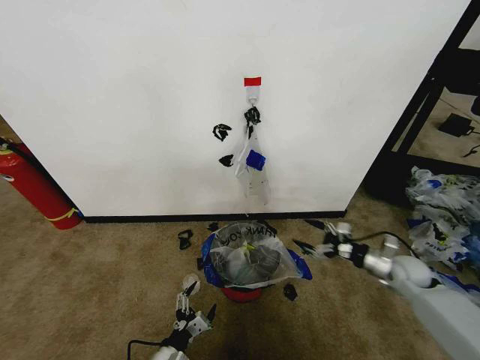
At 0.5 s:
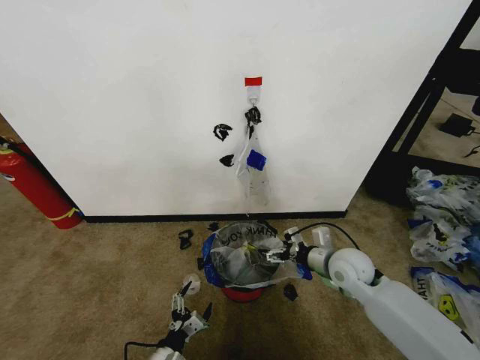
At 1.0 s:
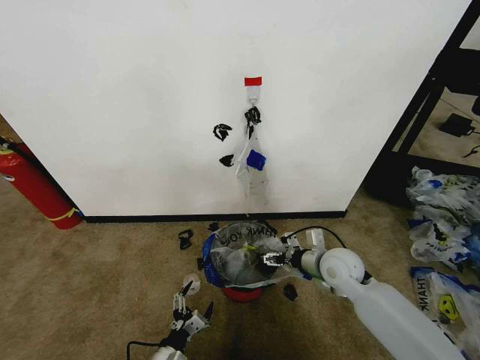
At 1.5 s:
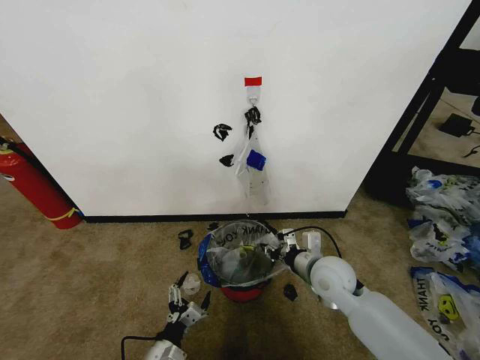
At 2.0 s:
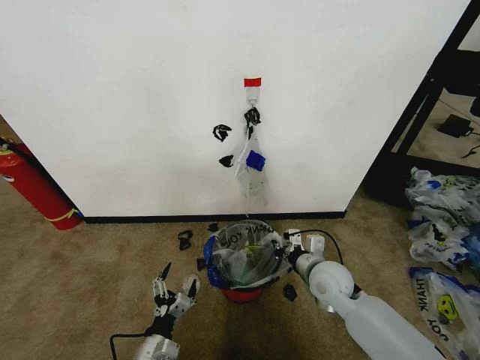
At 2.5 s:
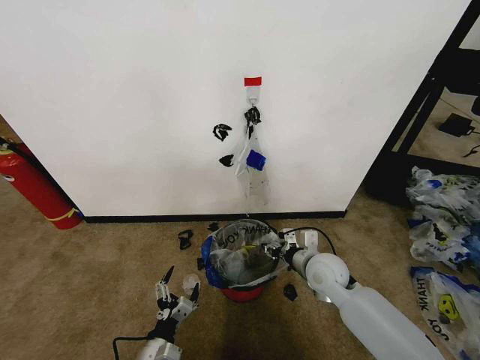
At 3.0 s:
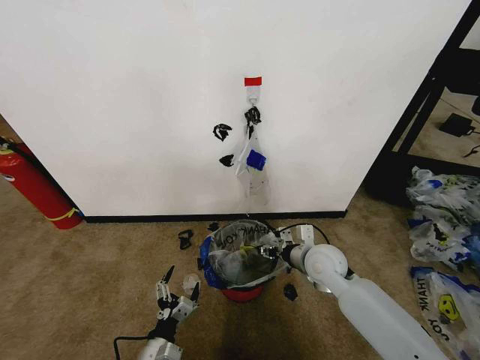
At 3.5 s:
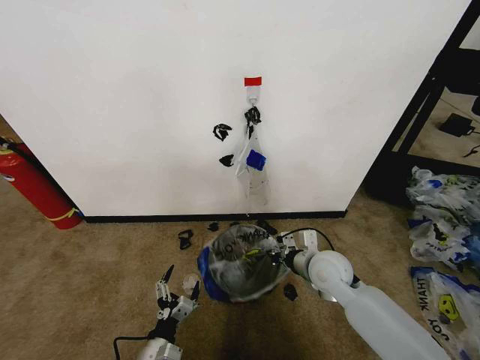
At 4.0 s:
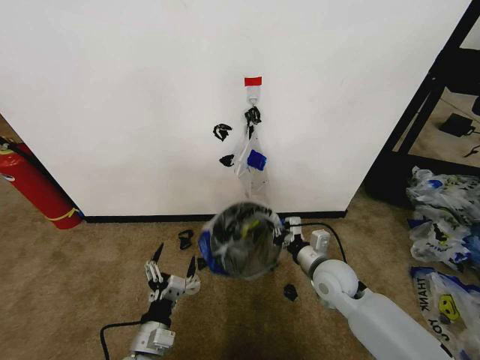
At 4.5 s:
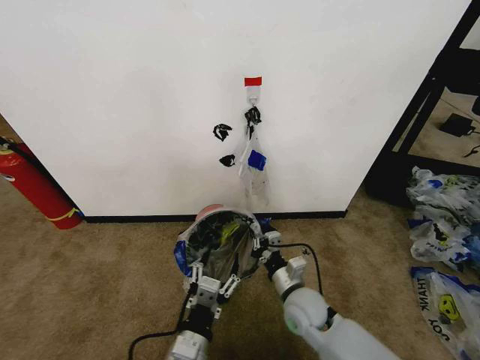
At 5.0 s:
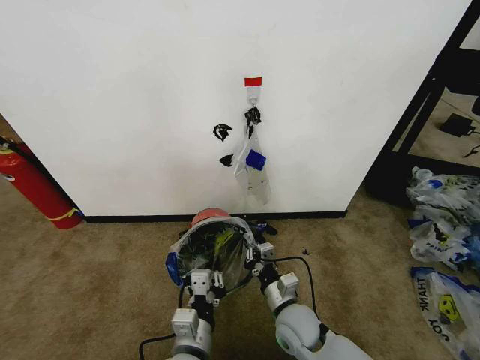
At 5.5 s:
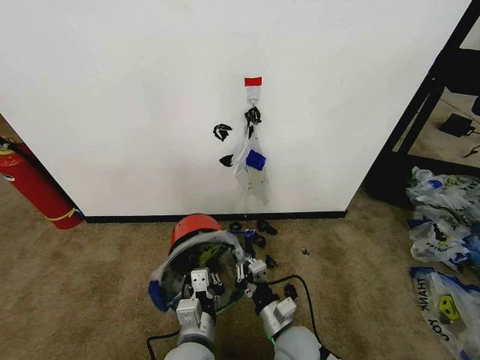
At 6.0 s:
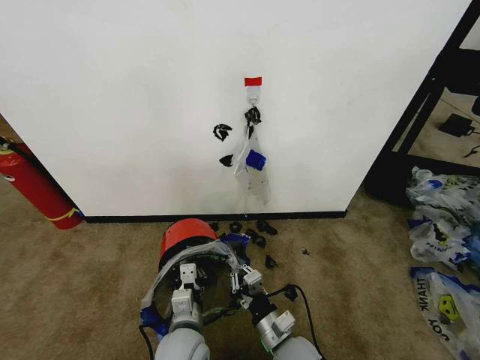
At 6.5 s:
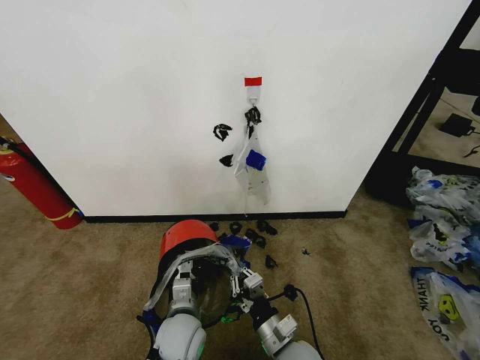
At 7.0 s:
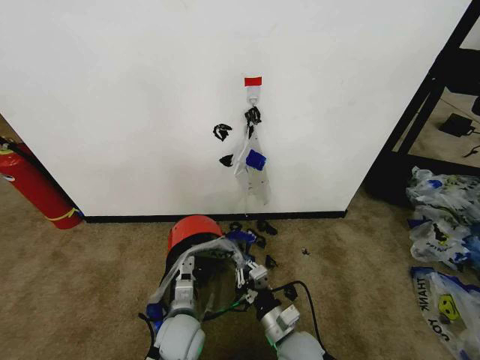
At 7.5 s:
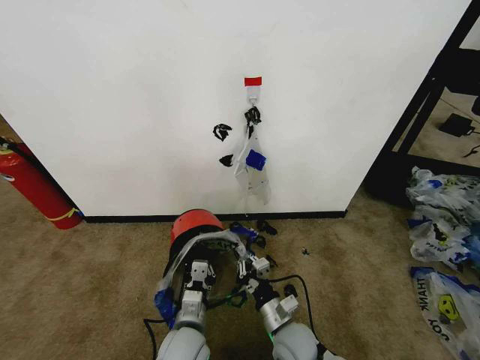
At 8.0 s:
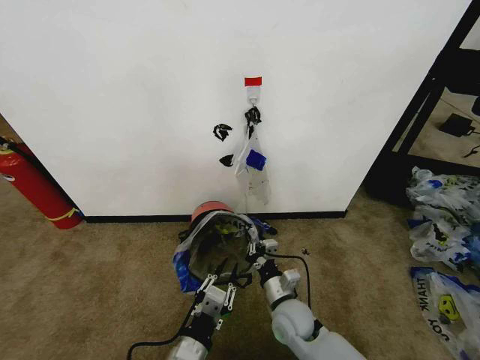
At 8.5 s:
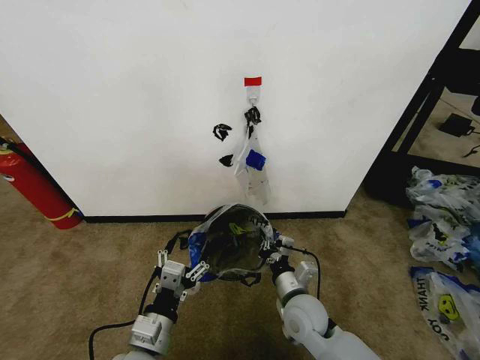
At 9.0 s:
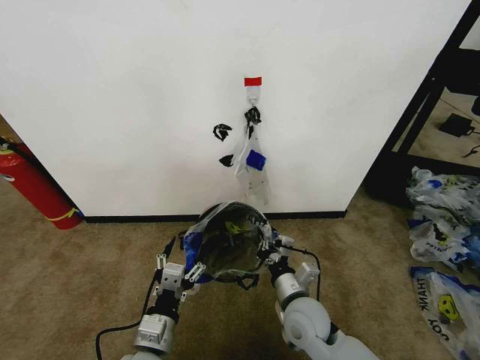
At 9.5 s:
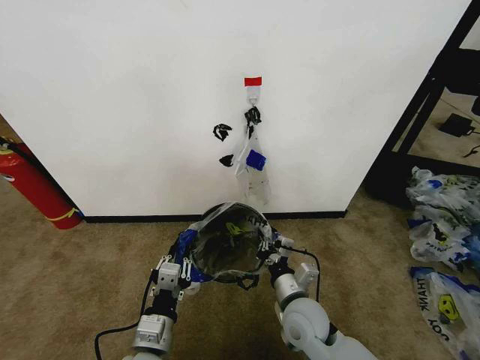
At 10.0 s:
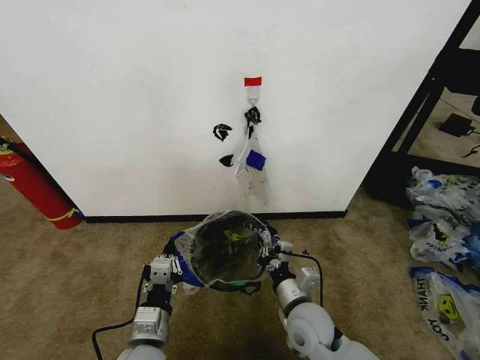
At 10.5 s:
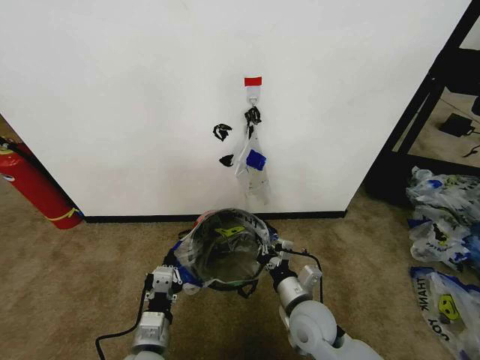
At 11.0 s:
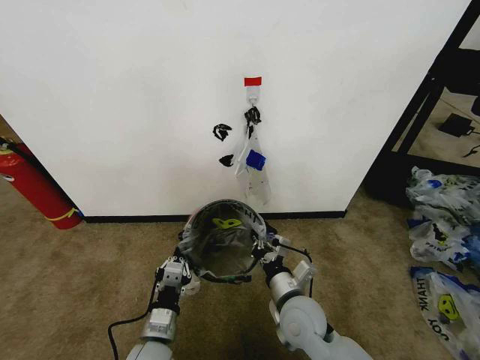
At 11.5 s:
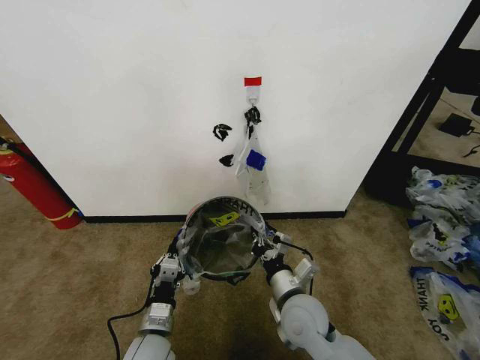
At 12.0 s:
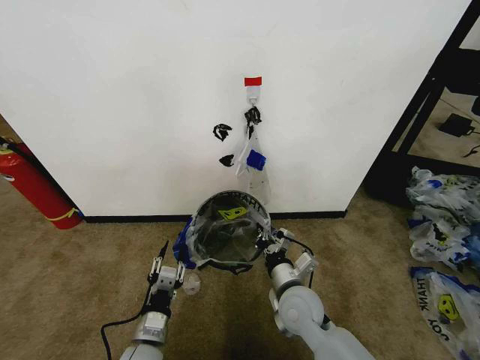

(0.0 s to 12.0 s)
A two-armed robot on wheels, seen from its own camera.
Task of the whole recording: Pick up the garbage bag from the wall and place it over the trash bin.
0.0 s - 2.0 s: The right gripper shifts roughly 20 cm to the left, and closes.
2.0 s - 4.0 s: The left gripper shifts approximately 5 cm upward, while the right gripper opens and closes again.
4.0 s - 6.0 s: The left gripper moves to the right, about 10 cm, and closes its fingers, while the right gripper moves backward, to the left and downward, approximately 20 cm.
6.0 s - 8.0 s: The left gripper goes roughly 10 cm backward, while the right gripper heads forward, covering about 10 cm.
8.0 s - 10.0 s: The left gripper goes approximately 5 cm to the left, and opens, then closes once more; the right gripper travels upward by some 5 cm.
10.0 s - 12.0 s: The left gripper heads downward, covering about 5 cm, and opens.

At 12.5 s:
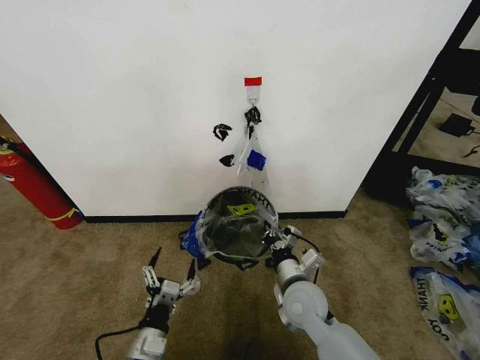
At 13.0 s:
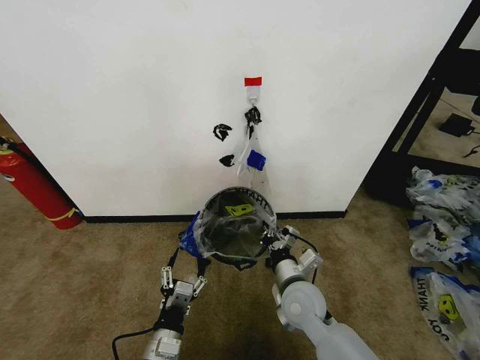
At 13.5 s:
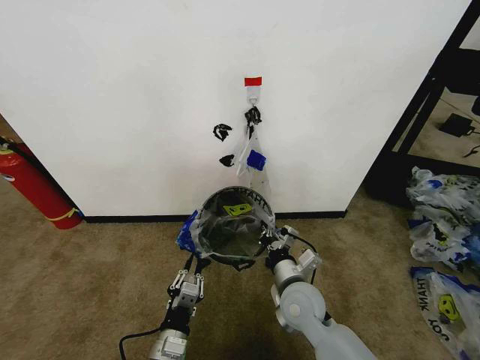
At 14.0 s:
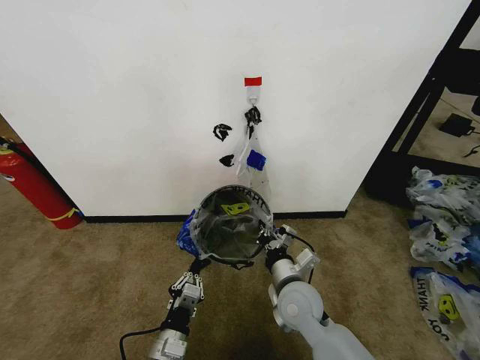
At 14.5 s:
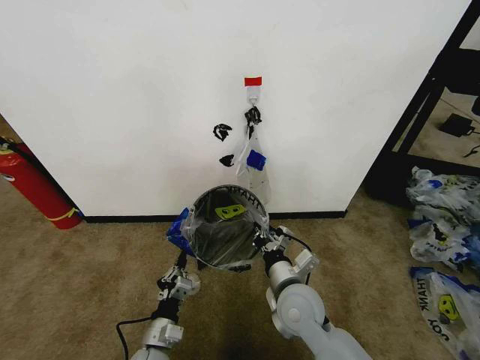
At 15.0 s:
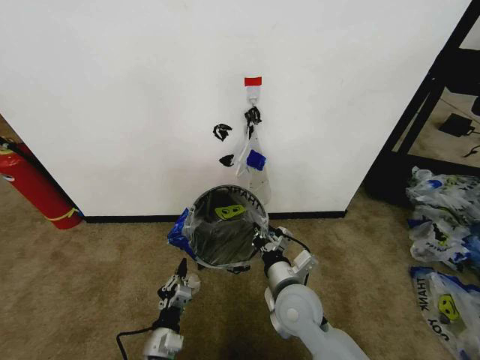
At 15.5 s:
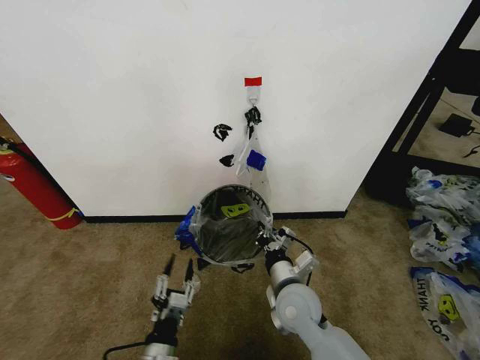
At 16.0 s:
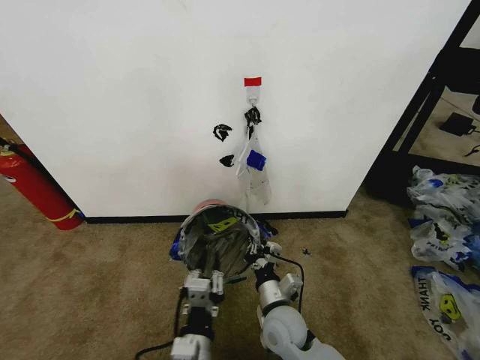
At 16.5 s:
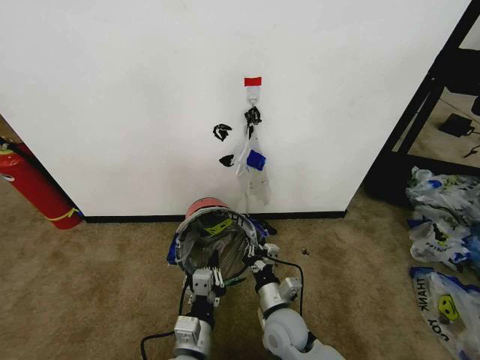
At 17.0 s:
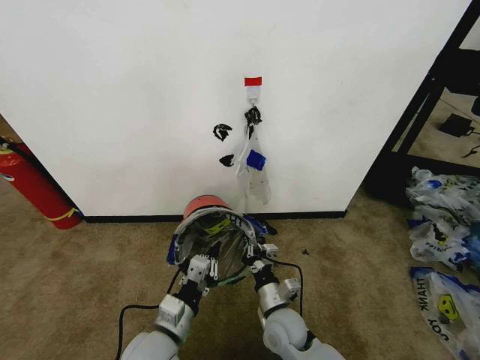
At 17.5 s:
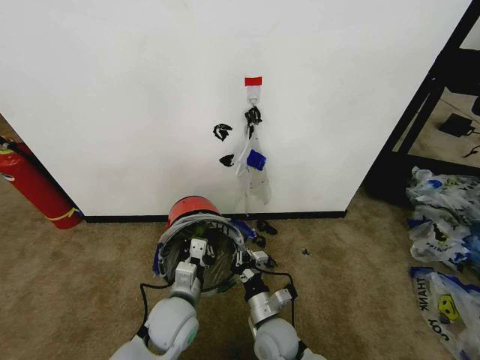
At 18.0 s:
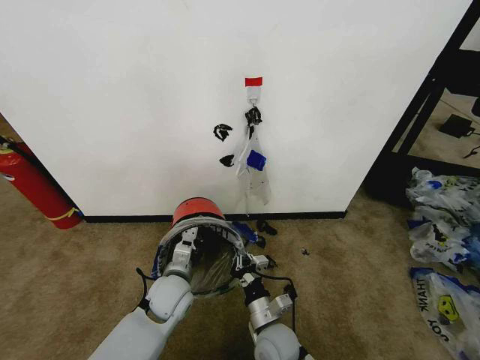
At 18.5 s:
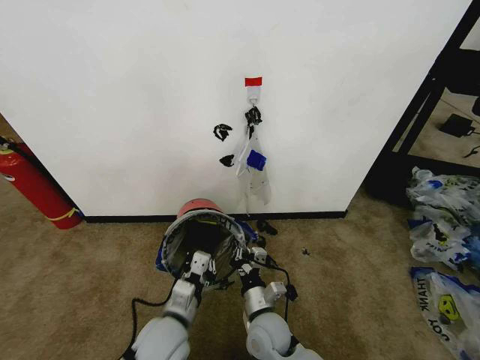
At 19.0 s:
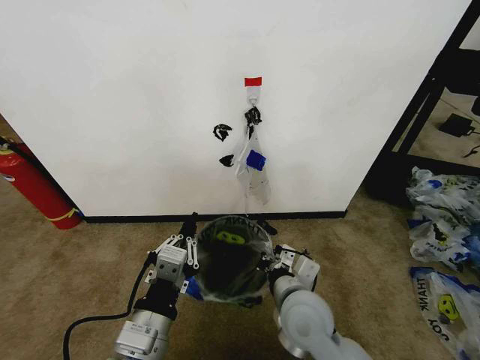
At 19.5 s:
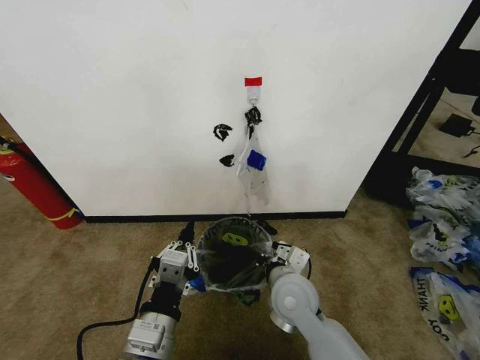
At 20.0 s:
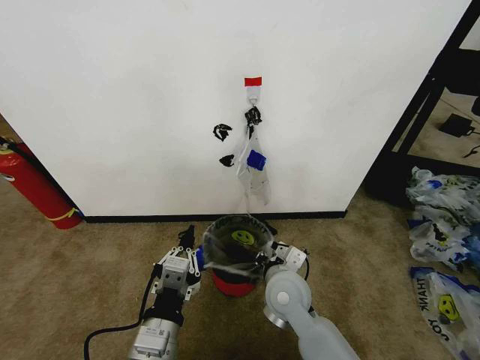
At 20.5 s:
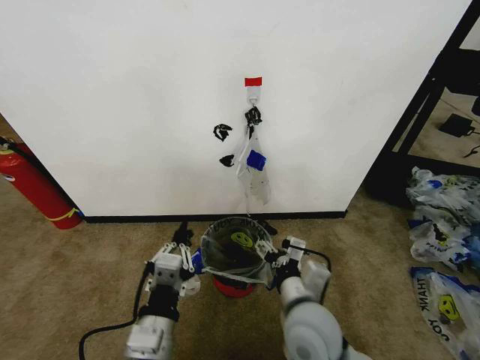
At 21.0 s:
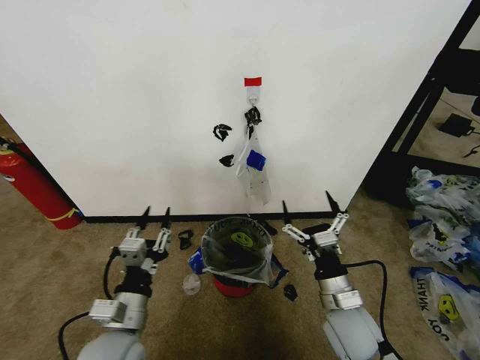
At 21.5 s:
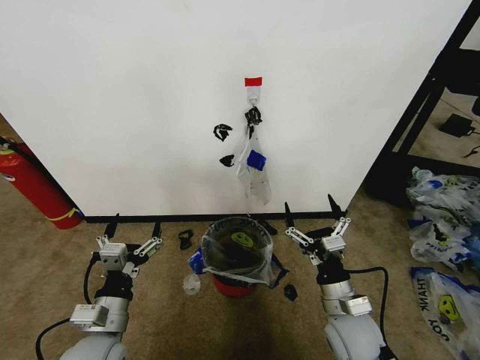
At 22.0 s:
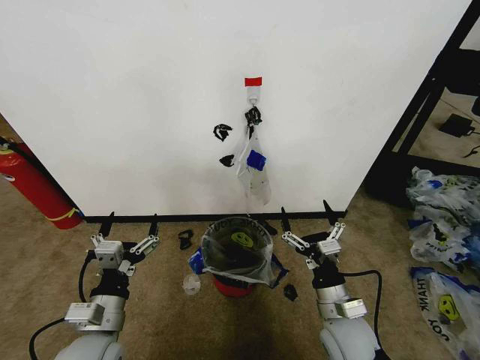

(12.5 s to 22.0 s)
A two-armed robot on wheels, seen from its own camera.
Task of the whole recording: Pick up the garbage bag from the wall and place it over the trash bin.
12.5 s - 14.5 s: The left gripper changes place by about 5 cm, and closes up.
14.5 s - 16.5 s: The left gripper shifts about 15 cm to the right and upward, and opens, then closes again, while the right gripper heads downward, covering roughly 10 cm.
16.5 s - 18.0 s: The left gripper moves forward and to the left, some 20 cm.
18.0 s - 20.0 s: The right gripper goes roughly 15 cm upward and forward. Meanwhile the left gripper heads backward and upward, covering roughly 20 cm.
20.0 s - 22.0 s: The right gripper goes some 15 cm to the right and backward, and opens up; the left gripper travels to the left and forward by roughly 10 cm, and opens up.
